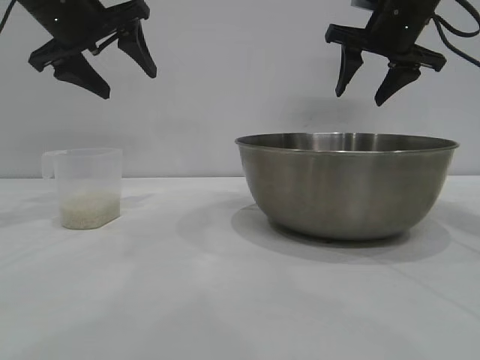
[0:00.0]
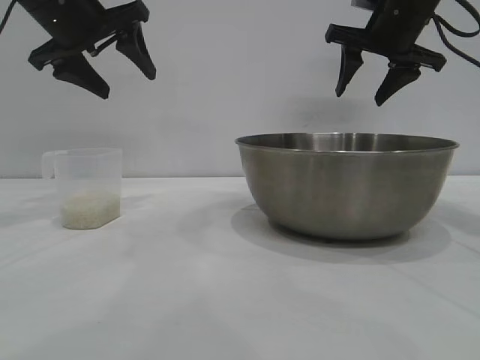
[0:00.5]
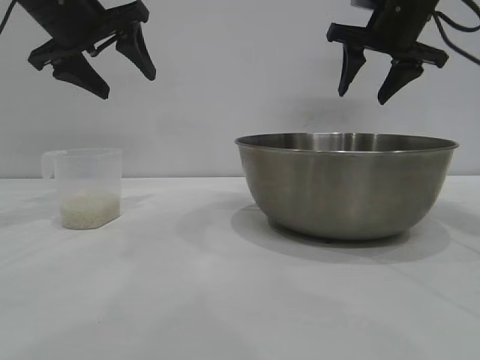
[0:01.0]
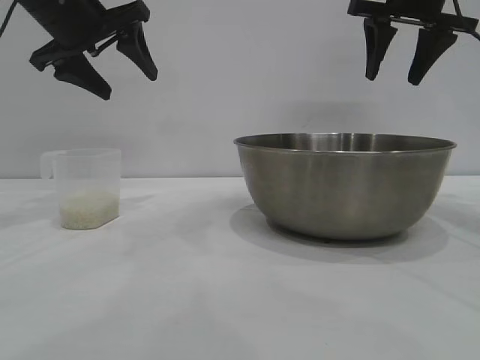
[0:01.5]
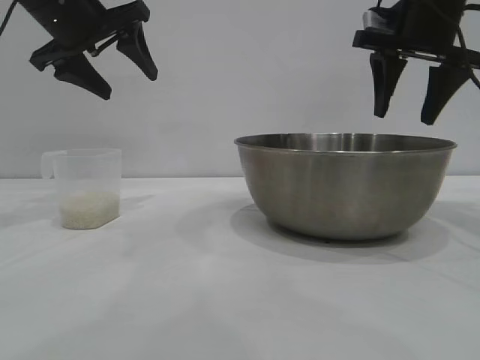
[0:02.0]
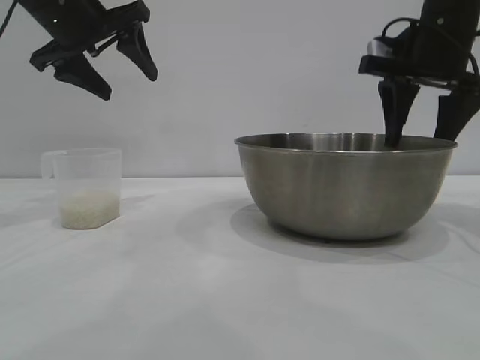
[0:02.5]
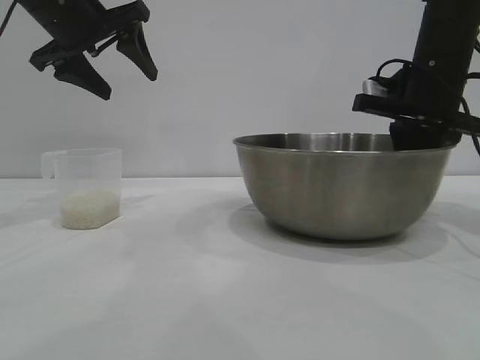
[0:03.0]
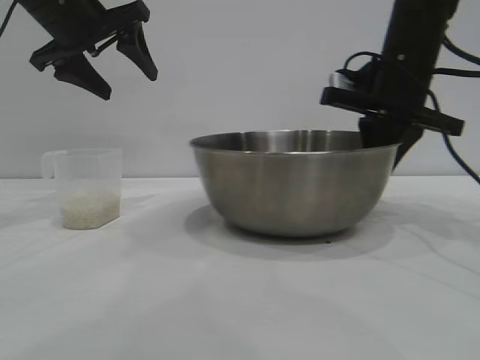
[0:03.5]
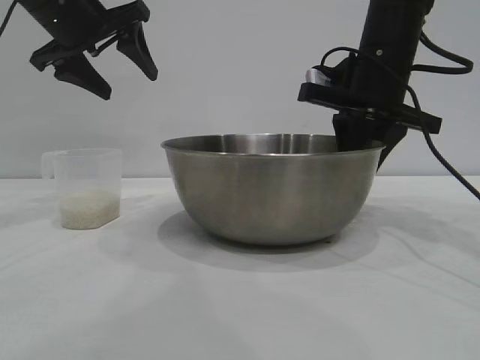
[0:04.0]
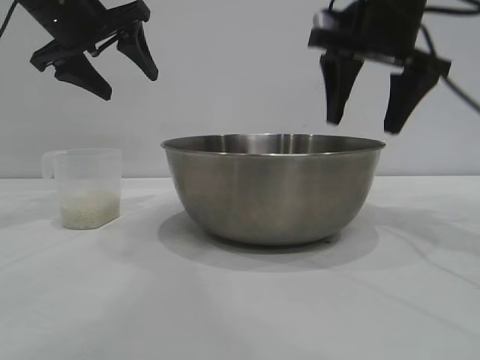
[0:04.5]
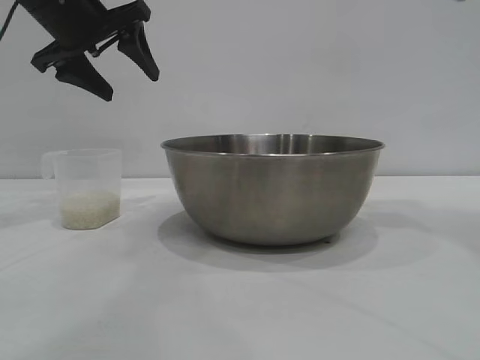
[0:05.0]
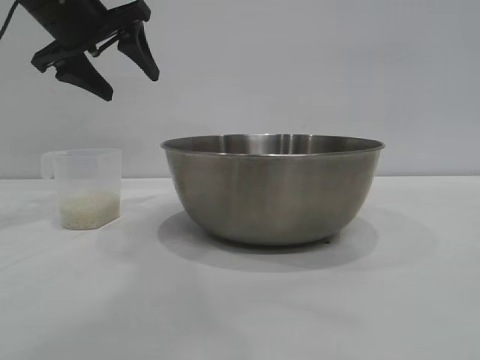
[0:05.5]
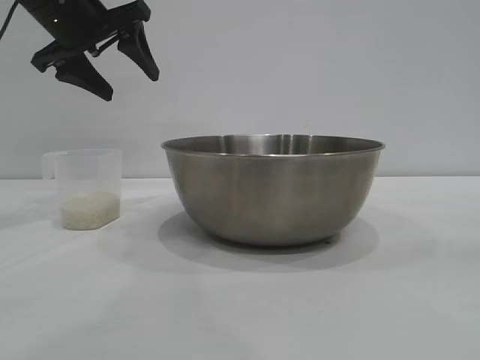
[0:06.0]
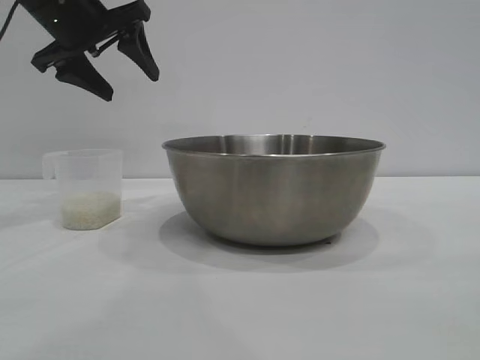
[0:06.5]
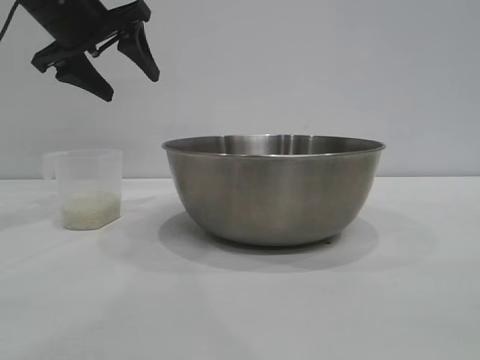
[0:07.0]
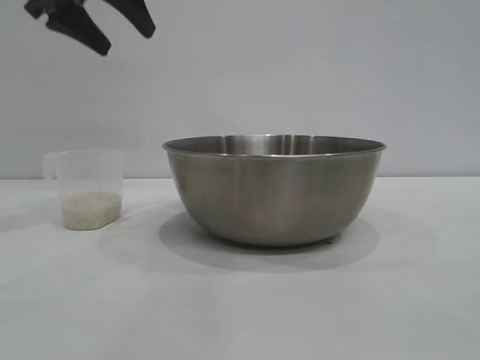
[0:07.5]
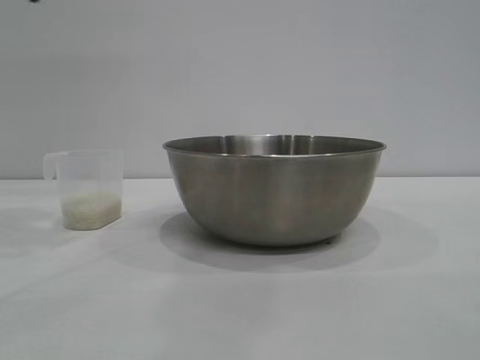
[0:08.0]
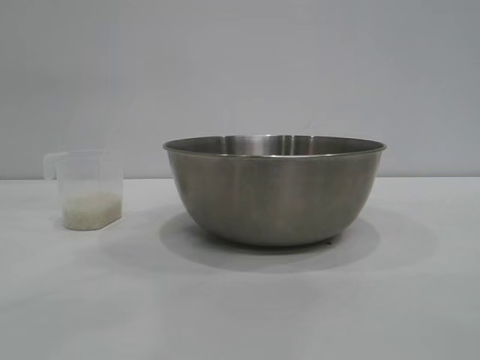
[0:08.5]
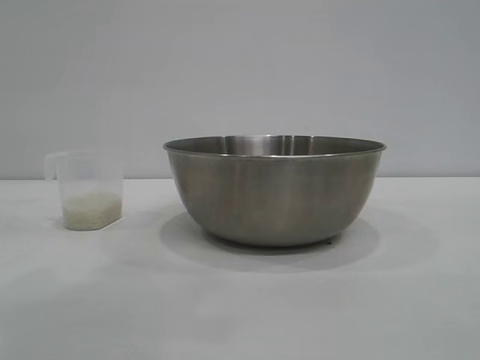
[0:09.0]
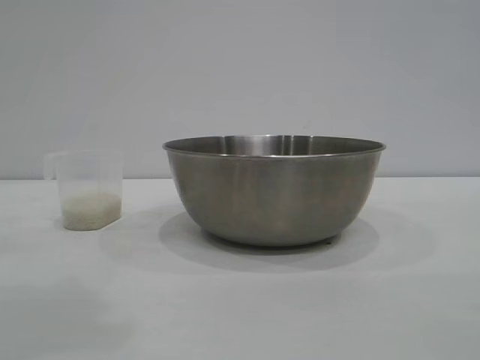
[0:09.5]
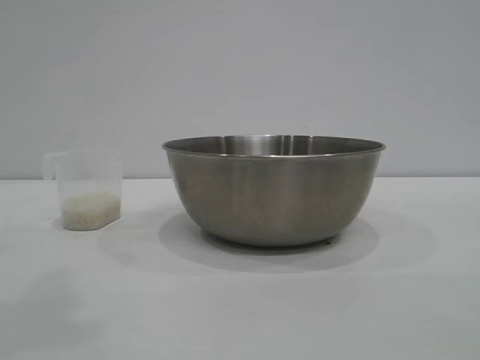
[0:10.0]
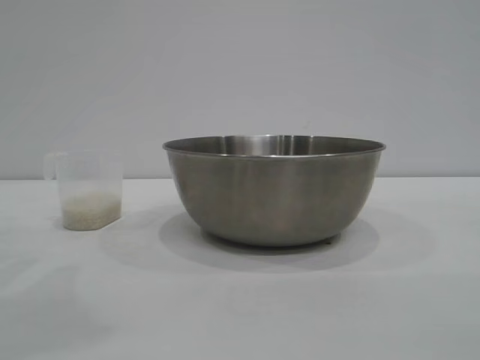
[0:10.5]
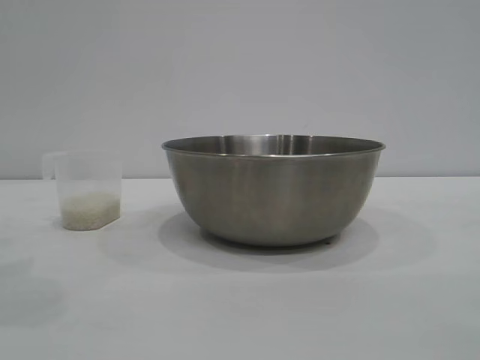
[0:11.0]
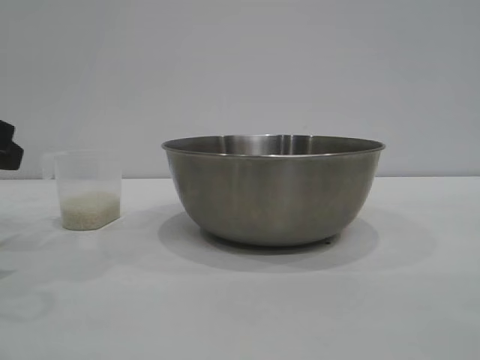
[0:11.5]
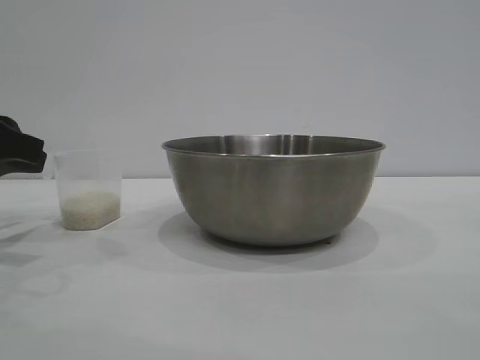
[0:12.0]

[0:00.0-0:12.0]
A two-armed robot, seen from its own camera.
Task of the whole recording: the right gripper grasp the rice container and place it in the center of the table, the left gripper grasp the rice scoop and pour the rice into the rice container.
Step, 0:00.0 to 0:04.5: Move the bowl to the center of view with the right gripper.

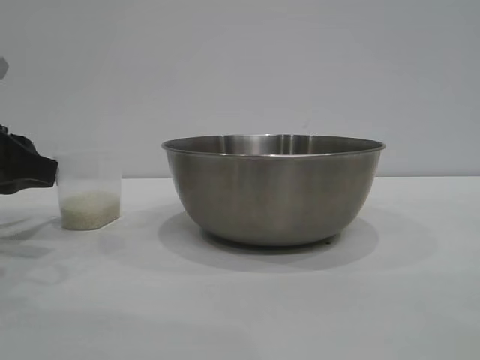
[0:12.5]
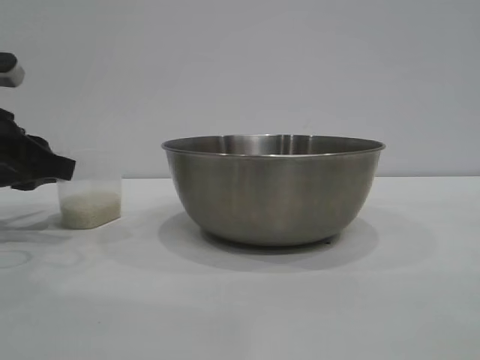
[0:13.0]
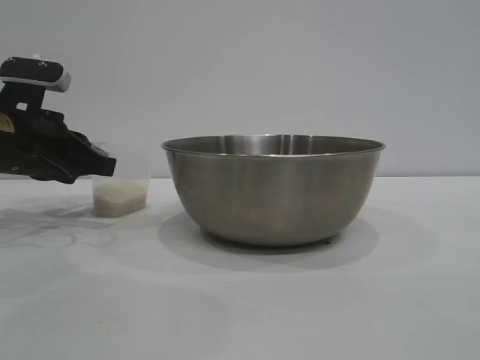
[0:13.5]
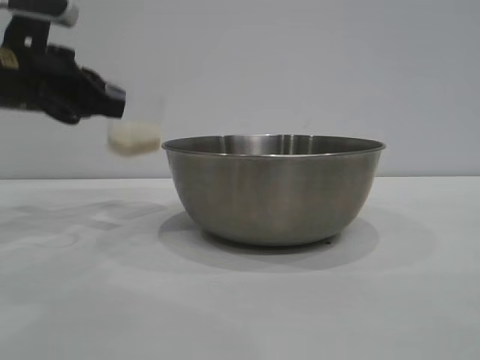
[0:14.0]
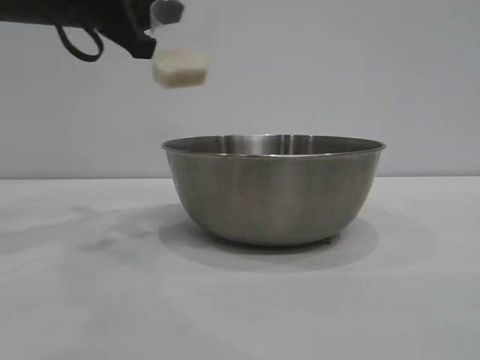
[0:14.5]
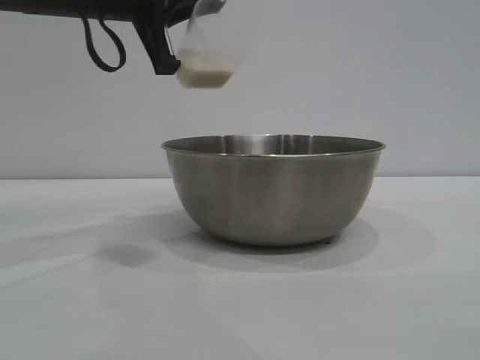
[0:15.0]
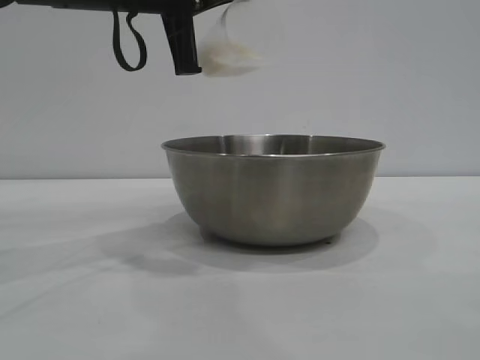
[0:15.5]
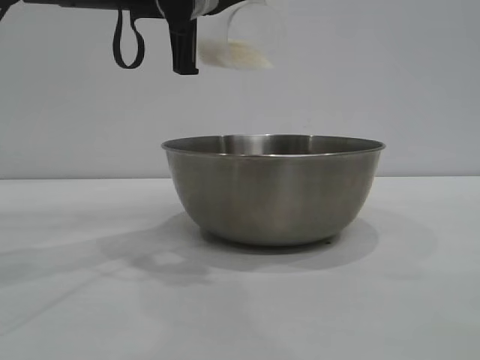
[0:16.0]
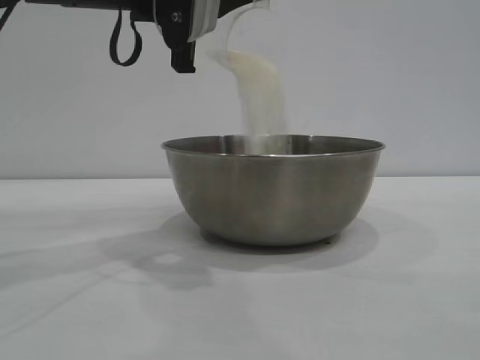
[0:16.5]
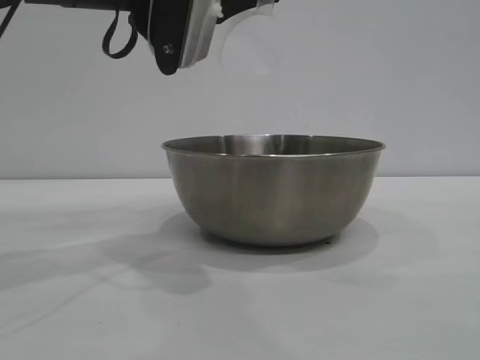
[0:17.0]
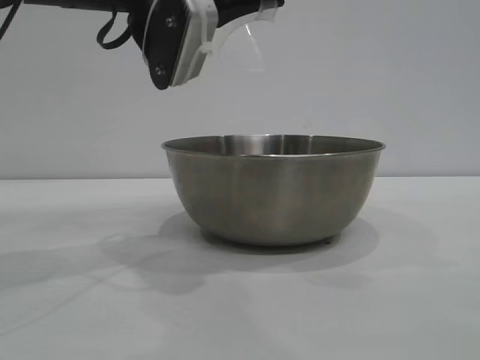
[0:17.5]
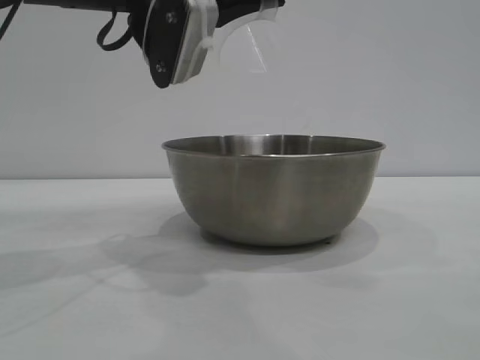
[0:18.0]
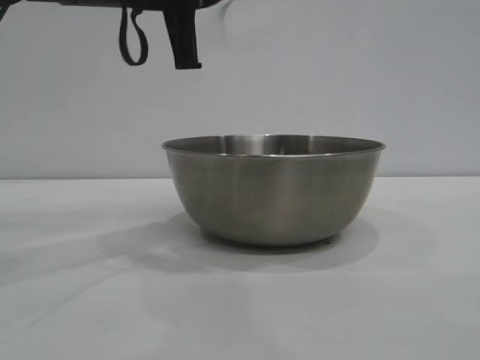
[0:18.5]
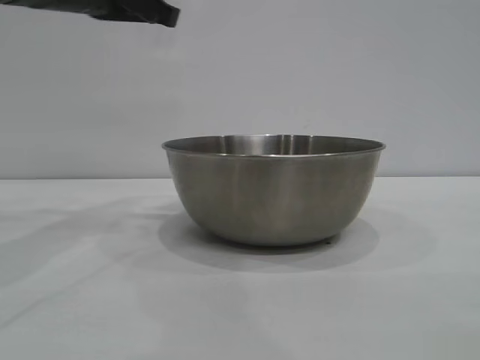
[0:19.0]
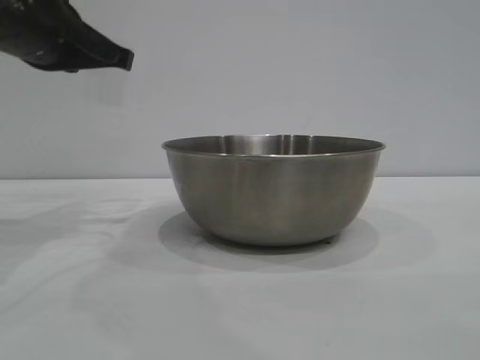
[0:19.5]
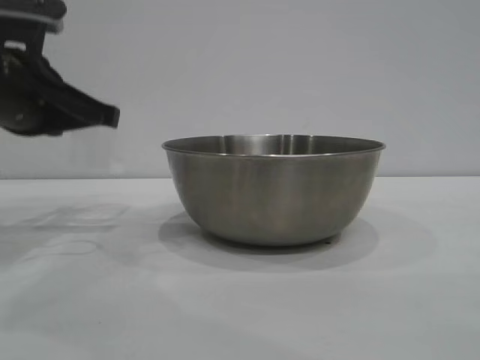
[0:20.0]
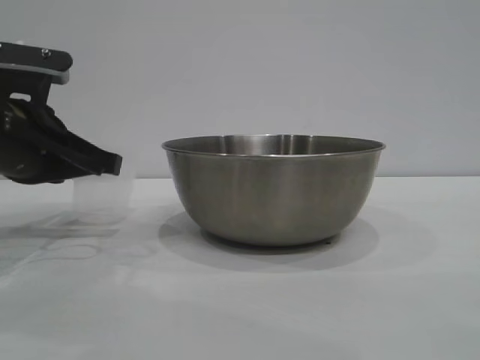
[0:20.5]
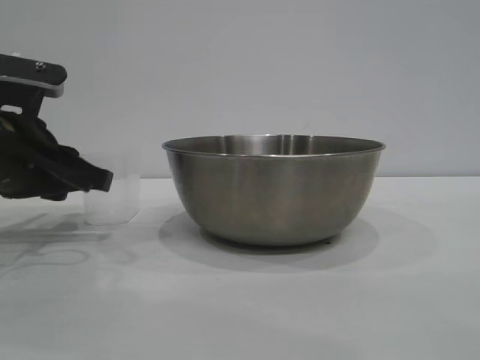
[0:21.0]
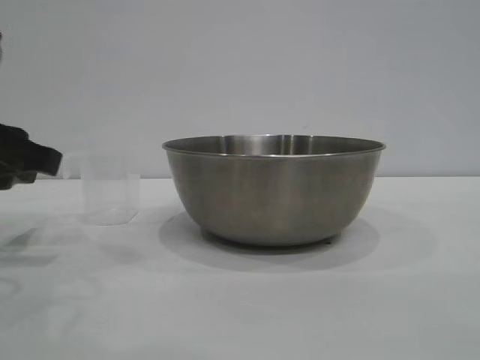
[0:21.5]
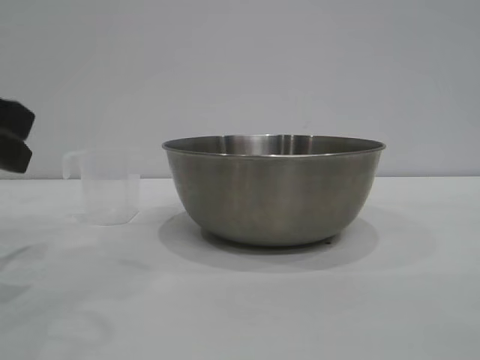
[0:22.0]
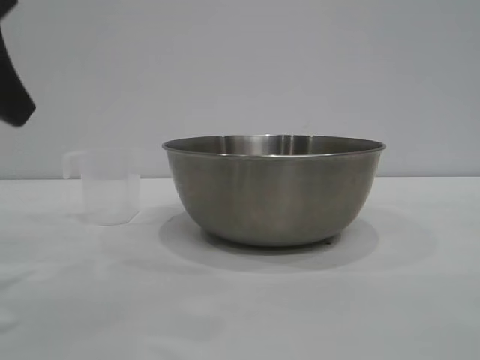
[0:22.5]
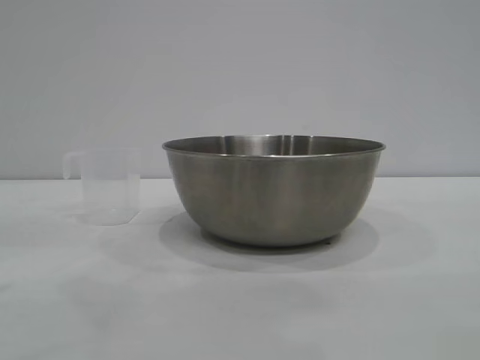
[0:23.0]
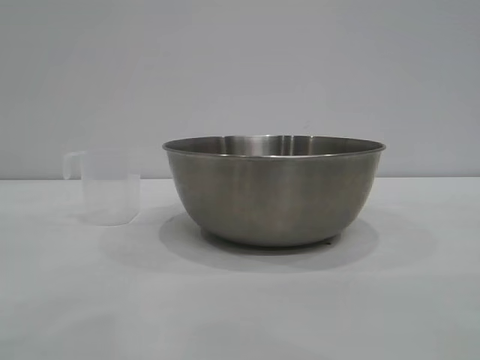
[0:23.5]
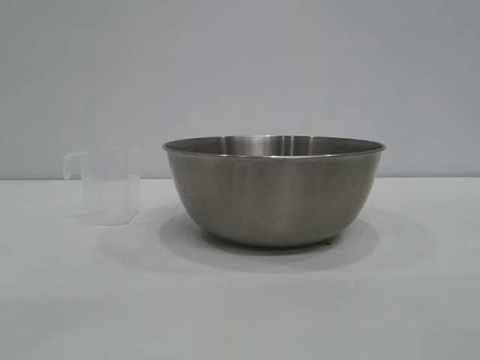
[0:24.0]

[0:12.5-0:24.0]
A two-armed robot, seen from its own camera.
Task of the whole recording: the right gripper grasp the rice container and place it in the center of the table, the left gripper grasp the rice scoop and pour the rice into the rice container.
Step, 0:14.5 to 0:17.0: Pour the rice from the cup into the bowl with the left gripper.
Step, 0:17.5 to 0:21.5: Place the cup on the table with the left gripper.
